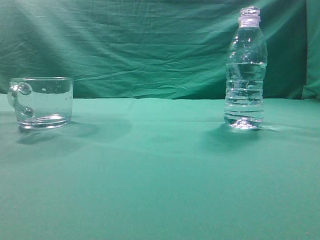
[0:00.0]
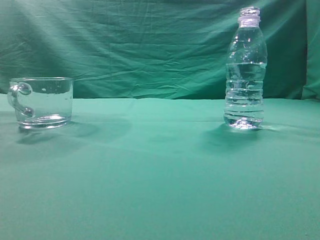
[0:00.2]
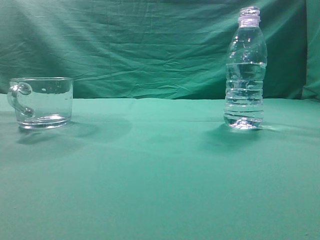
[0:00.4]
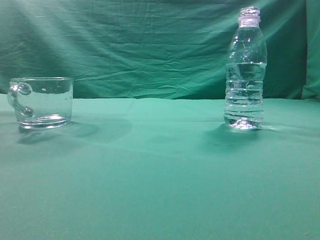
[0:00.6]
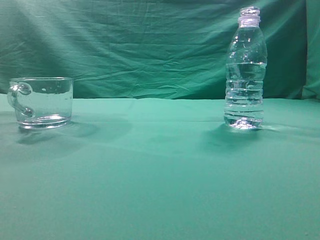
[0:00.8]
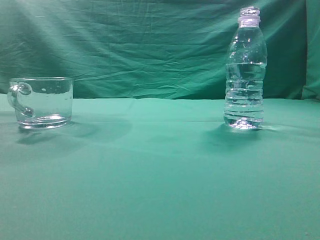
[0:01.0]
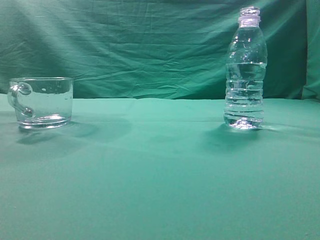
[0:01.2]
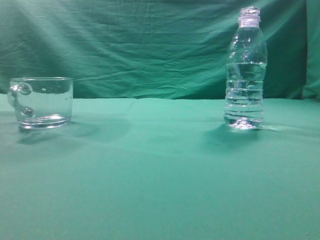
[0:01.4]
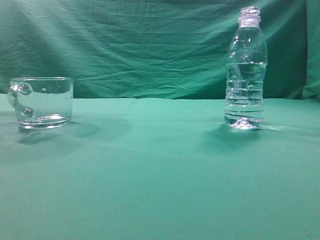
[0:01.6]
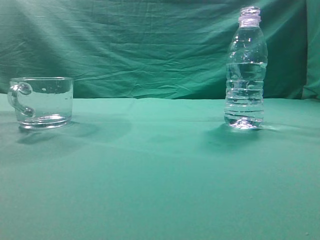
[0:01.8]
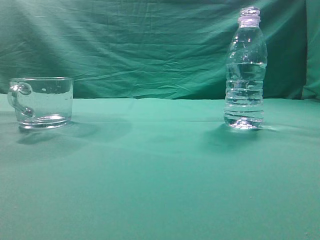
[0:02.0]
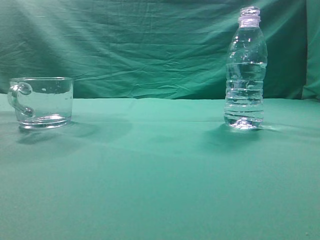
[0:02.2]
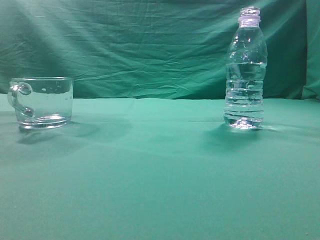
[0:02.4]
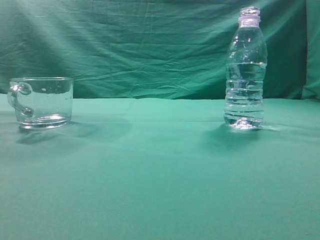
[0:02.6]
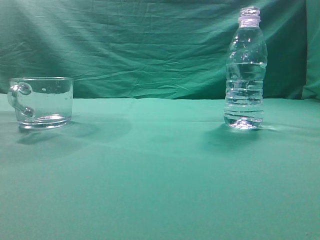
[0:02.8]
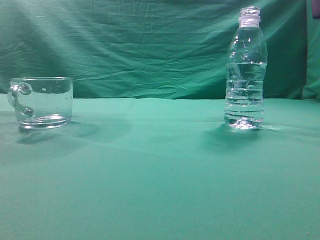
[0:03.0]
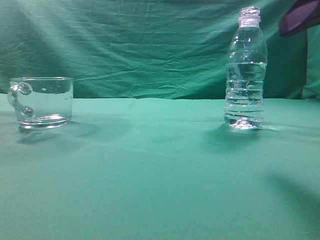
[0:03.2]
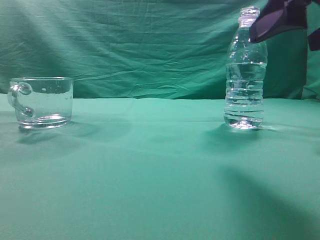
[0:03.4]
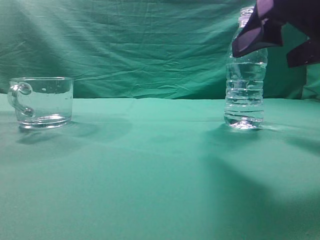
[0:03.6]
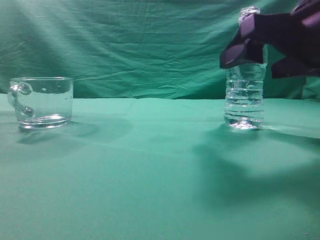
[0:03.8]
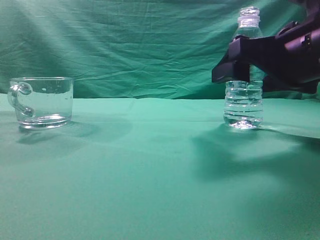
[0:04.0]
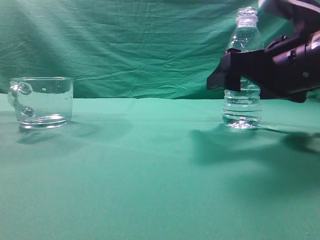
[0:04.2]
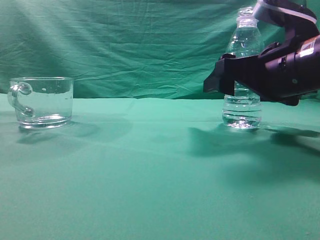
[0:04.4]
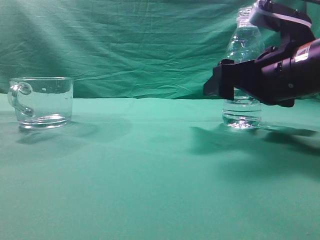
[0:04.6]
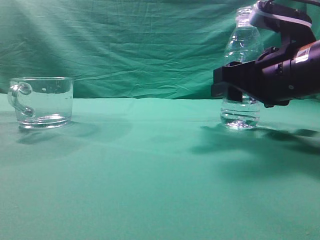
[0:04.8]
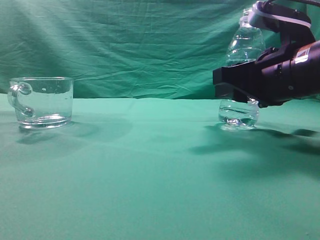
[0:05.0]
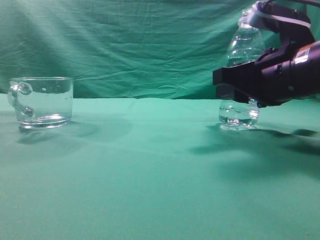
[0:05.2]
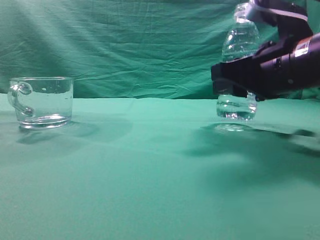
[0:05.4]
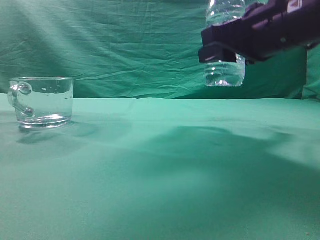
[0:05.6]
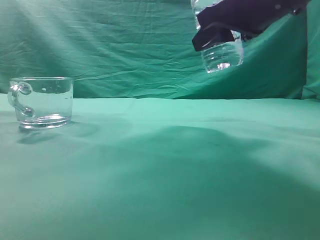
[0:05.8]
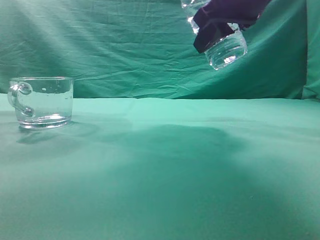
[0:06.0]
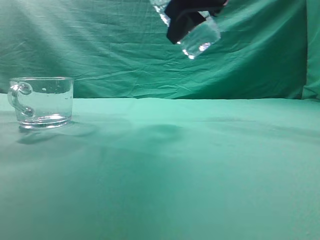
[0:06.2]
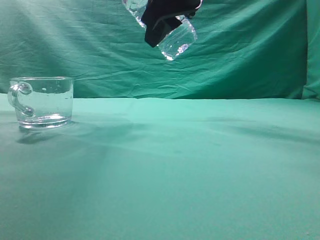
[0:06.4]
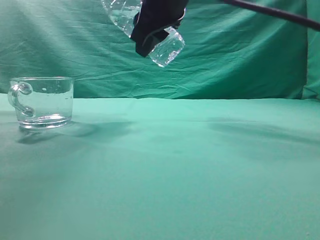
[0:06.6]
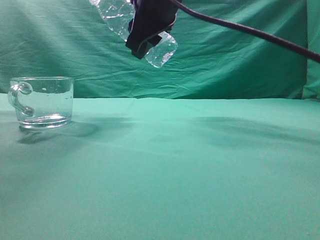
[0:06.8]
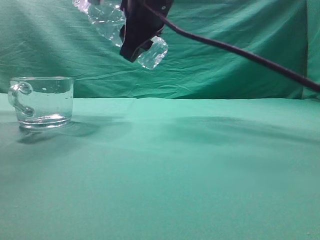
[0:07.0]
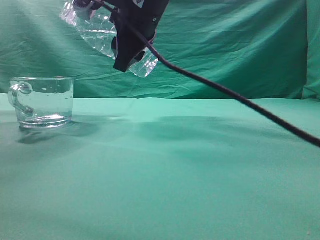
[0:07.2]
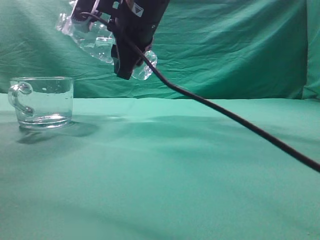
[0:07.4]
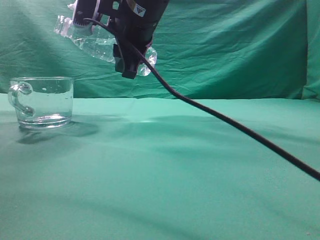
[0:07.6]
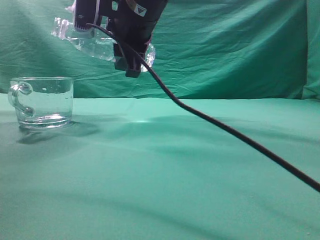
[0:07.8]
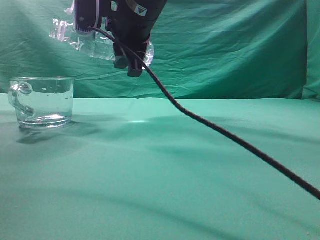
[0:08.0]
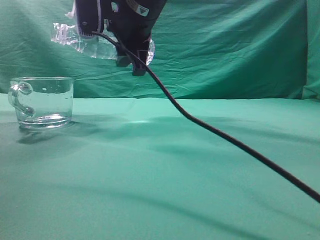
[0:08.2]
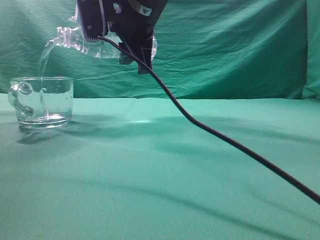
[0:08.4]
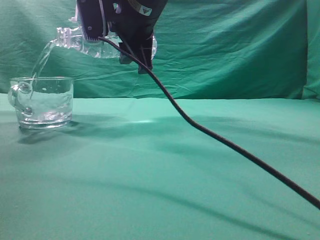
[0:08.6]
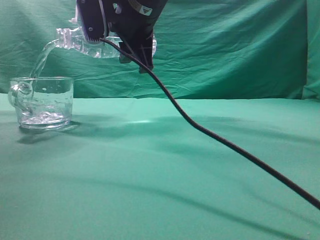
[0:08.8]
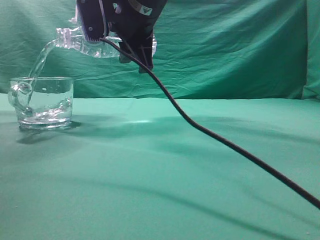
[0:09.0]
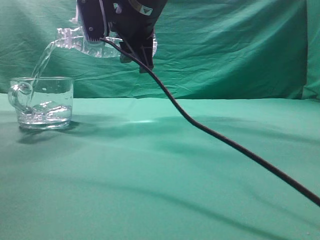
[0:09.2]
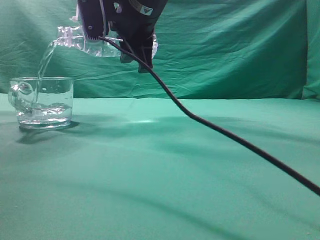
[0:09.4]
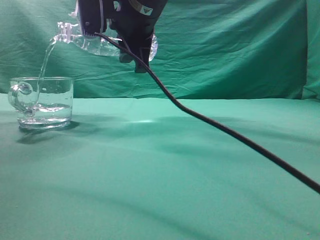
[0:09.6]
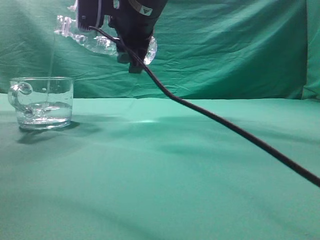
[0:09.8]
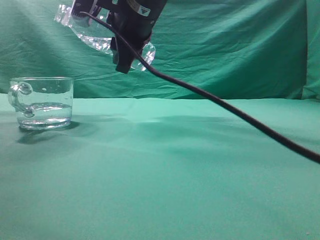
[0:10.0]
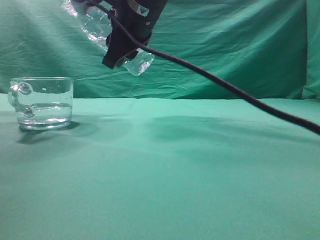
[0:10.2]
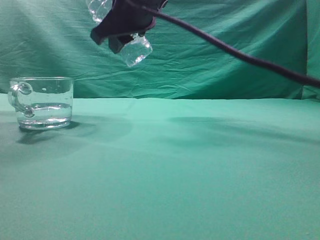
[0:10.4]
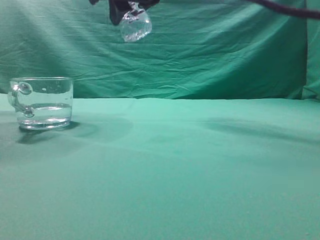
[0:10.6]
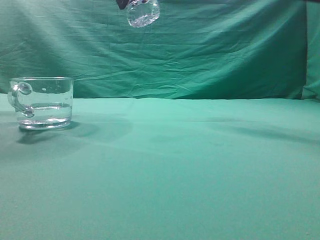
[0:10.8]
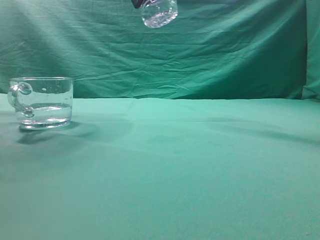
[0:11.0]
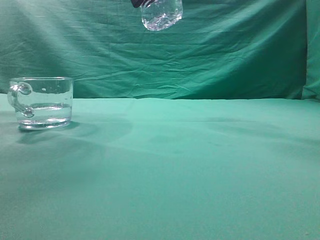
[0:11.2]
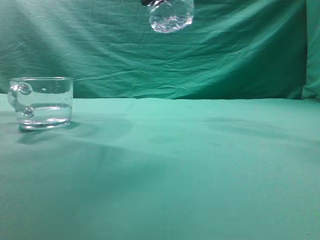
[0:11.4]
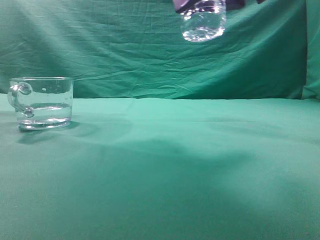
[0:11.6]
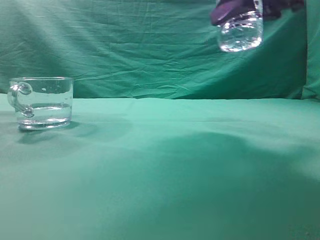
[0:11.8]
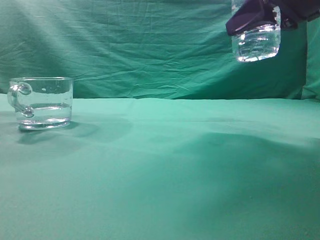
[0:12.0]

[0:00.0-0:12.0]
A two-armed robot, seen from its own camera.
Task of the whole recording: pick up the water bottle and pour the water in it into the glass.
Step, 0:00.0 to 0:05.4: Grasp the mineral water bottle.
Step, 0:05.6 to 0:10.2: Pour water into the teacup.
0:03.0 to 0:04.4: The right gripper goes approximately 15 cm forward, downward and to the left, and opens its fingers.
0:04.4 to 0:06.0: The right gripper travels upward by approximately 15 cm, and closes up.
0:06.0 to 0:07.6: The right gripper moves to the left, approximately 15 cm.
0:10.4 to 0:12.0: The right gripper shifts some 20 cm to the right.

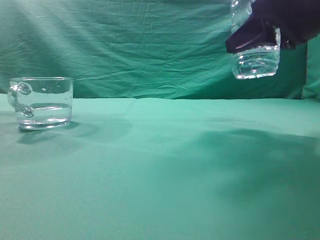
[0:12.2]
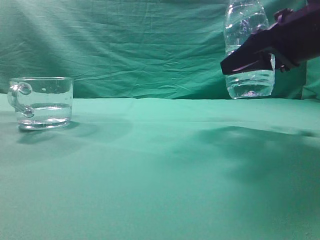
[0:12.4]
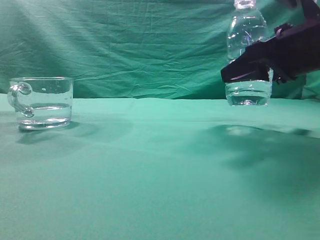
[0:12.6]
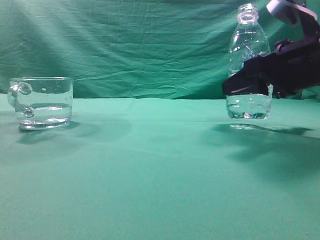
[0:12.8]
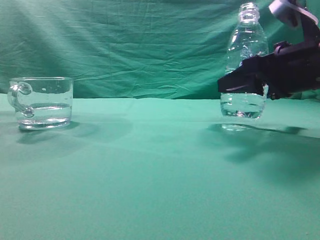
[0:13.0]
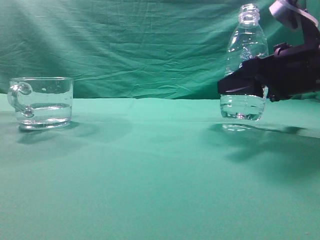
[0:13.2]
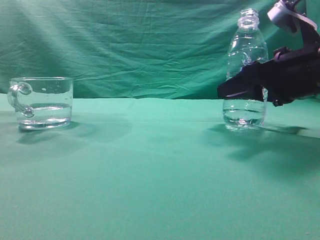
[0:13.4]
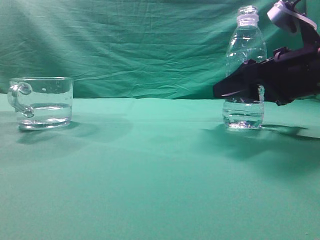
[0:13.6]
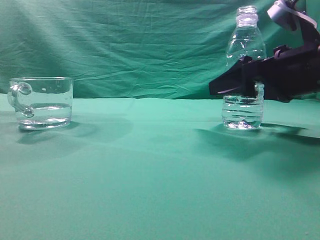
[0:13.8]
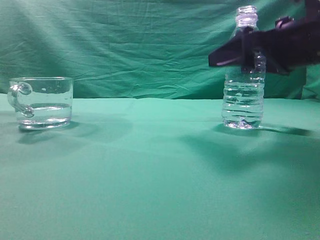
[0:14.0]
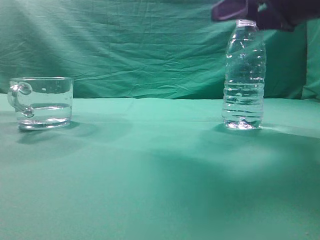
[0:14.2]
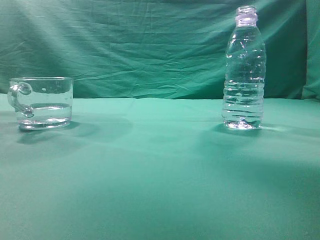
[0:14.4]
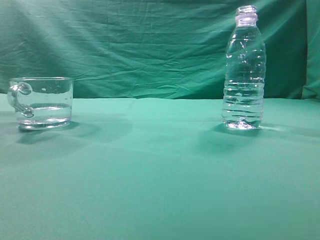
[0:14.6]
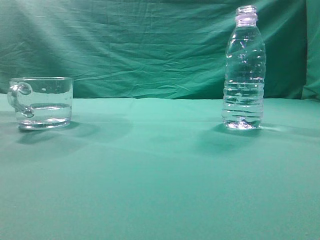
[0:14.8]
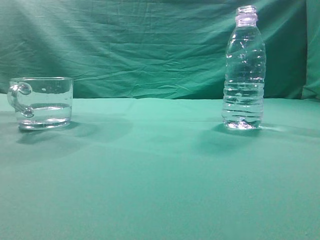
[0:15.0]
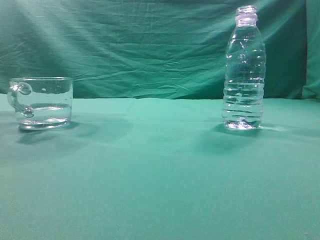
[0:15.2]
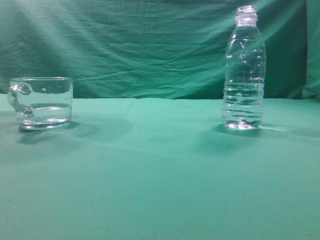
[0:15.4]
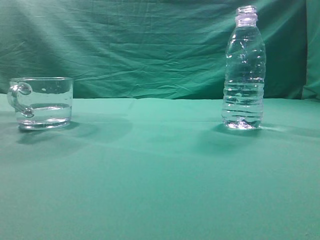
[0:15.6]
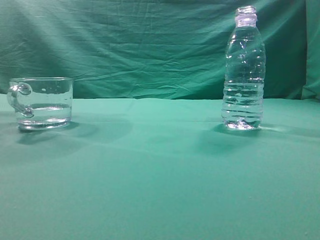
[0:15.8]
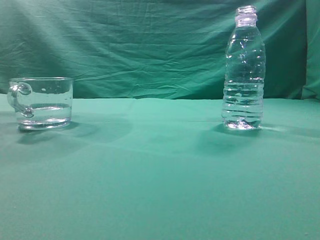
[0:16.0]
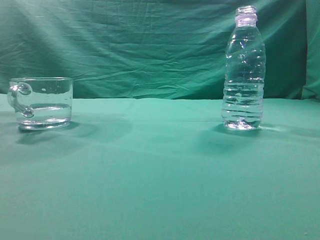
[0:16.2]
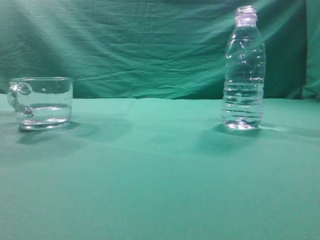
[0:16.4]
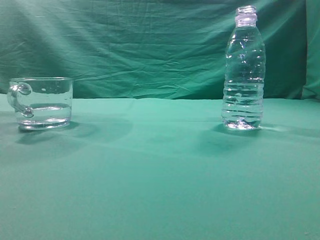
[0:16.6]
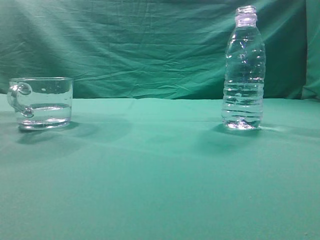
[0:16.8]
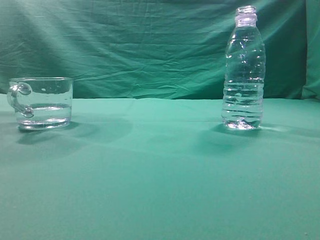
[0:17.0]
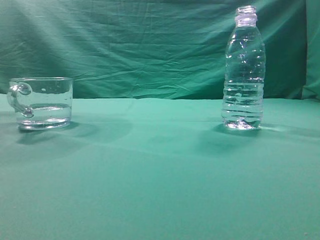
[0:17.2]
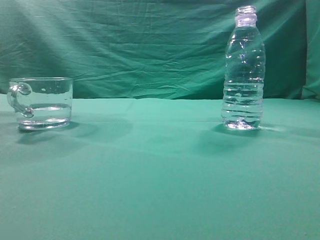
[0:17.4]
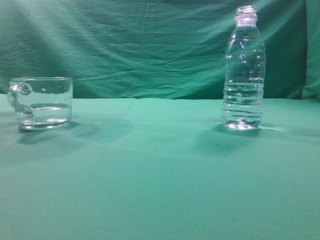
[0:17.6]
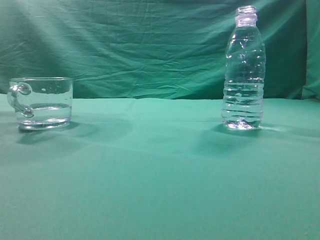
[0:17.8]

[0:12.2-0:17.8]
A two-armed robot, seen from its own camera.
Task of the whole recording: pick up the water bottle and pour the water in it into the glass.
0:12.2 to 0:13.6: The right gripper travels downward by about 10 cm.
0:13.6 to 0:15.0: The right gripper travels upward and backward by about 30 cm, and closes its fingers.
